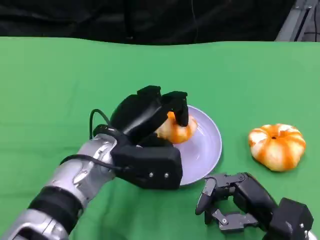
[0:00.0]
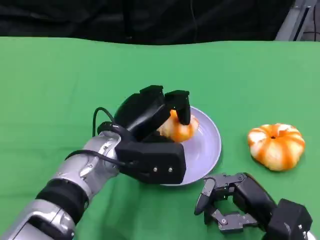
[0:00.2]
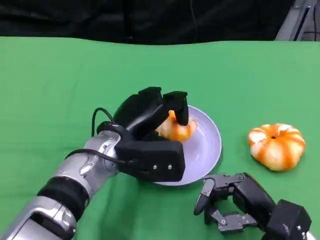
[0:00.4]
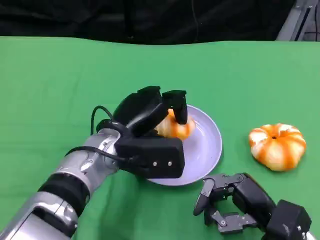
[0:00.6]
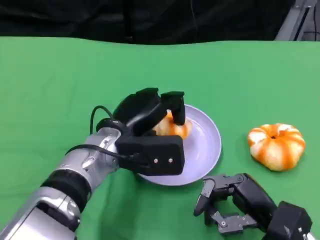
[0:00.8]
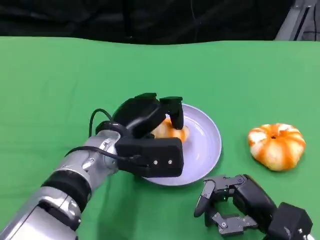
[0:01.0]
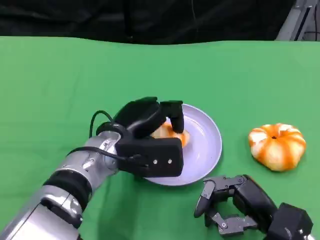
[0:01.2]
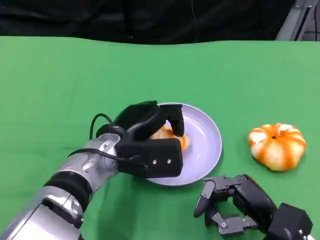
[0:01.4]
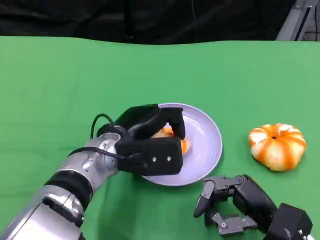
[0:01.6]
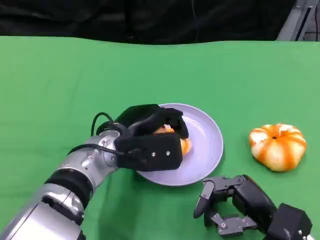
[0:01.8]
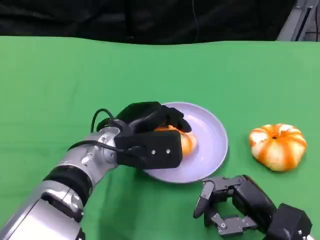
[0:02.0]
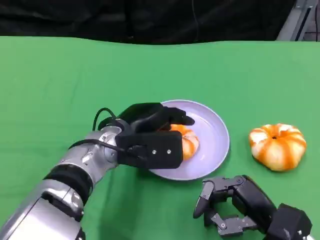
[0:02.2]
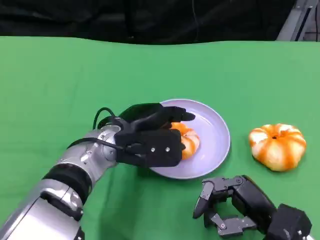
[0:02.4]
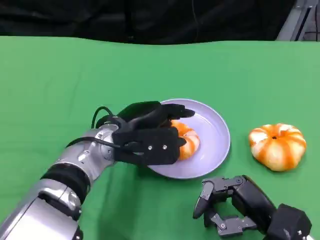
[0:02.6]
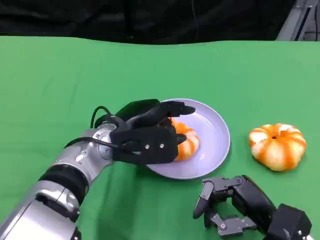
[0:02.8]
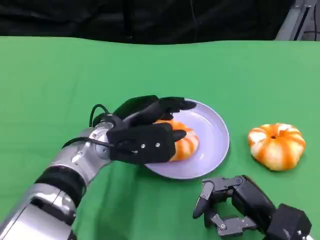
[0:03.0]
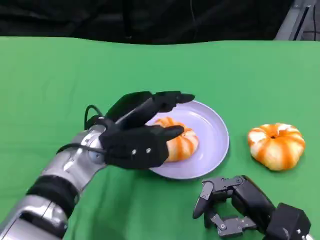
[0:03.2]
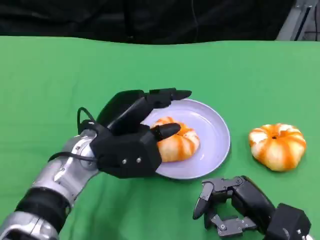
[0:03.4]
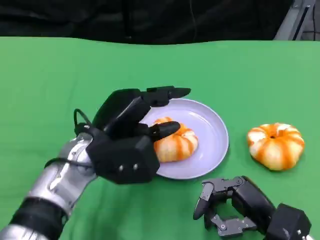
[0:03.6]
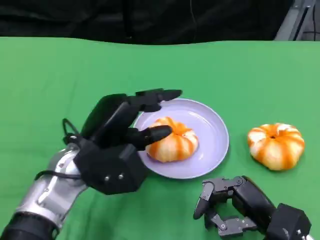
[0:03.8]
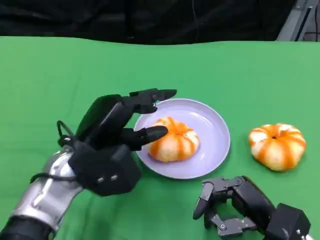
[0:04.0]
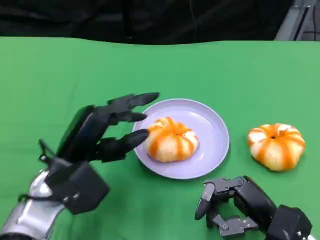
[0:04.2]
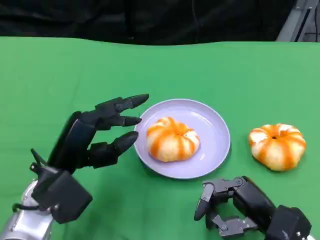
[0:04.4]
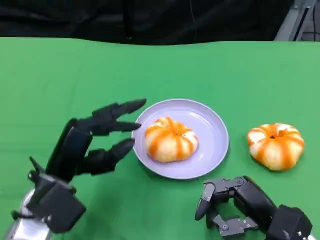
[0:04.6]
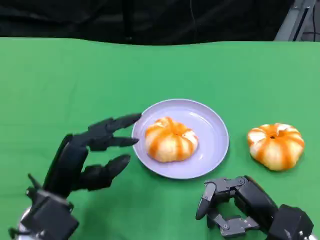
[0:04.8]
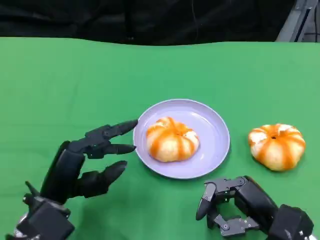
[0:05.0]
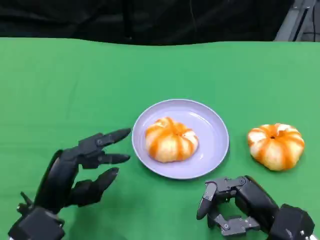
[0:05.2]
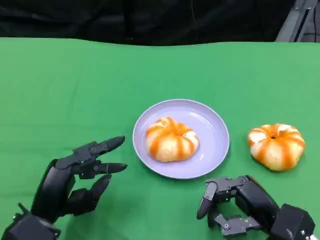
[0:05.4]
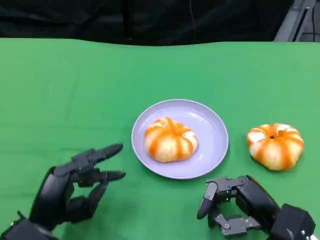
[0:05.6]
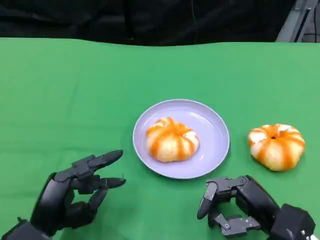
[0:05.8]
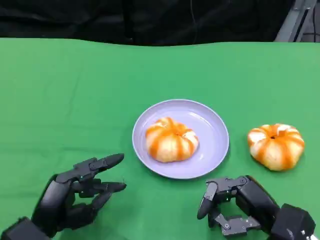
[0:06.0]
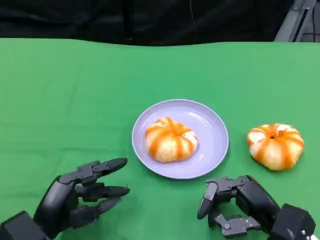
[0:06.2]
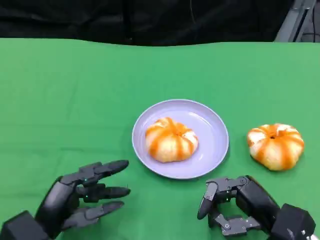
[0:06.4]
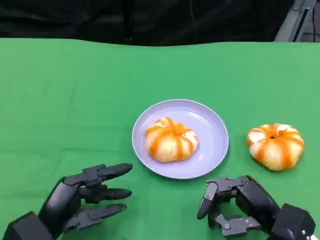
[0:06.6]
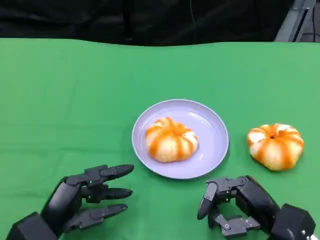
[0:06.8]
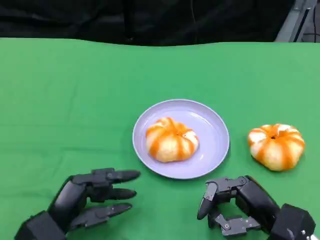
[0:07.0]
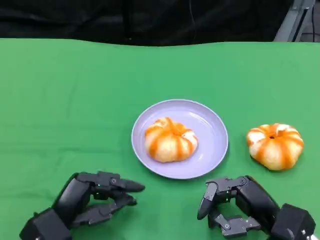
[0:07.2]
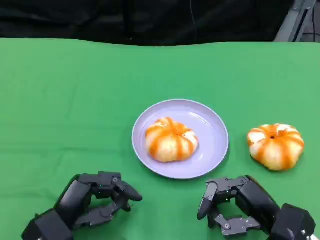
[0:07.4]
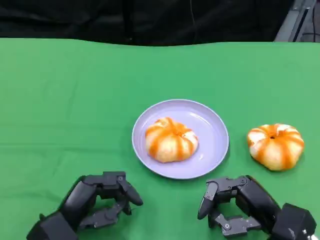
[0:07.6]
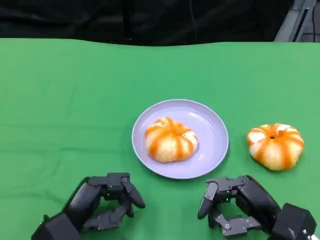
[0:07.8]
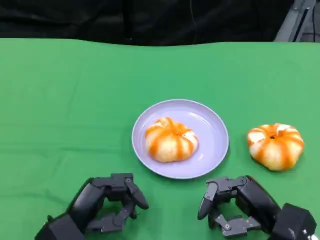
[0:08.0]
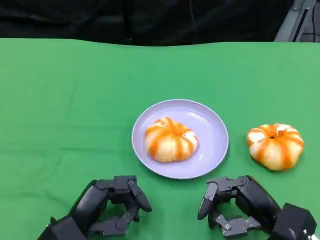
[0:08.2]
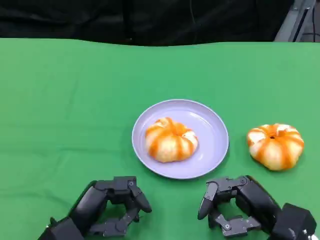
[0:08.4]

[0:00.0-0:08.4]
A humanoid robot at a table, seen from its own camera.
Task of the whole recording: Grasp the bread from the table and place it into the plate.
0:00.0 to 0:01.4: The hands stay close to where they were, moving slightly.
0:01.4 to 0:02.8: The hands make only small movements.
0:02.8 to 0:04.2: The left hand shifts some 10 cm to the left and backward.
0:04.2 to 0:05.6: The left hand shifts roughly 10 cm downward and backward.
0:05.6 to 0:08.4: The hands make only small movements.

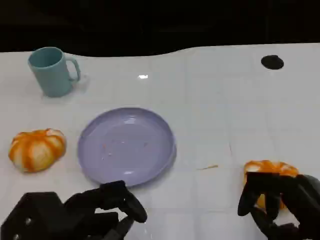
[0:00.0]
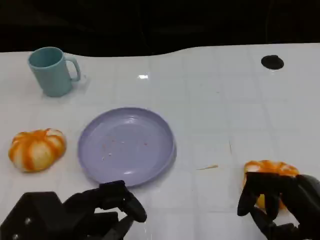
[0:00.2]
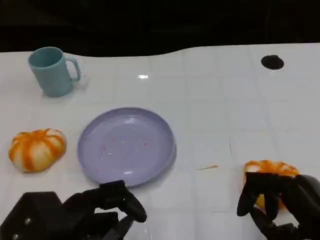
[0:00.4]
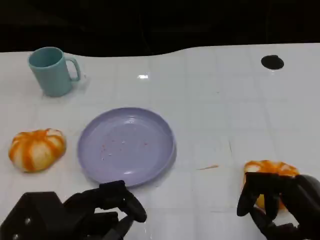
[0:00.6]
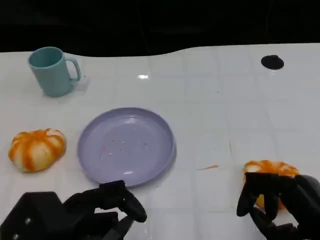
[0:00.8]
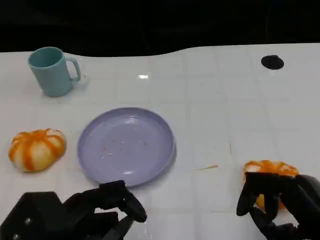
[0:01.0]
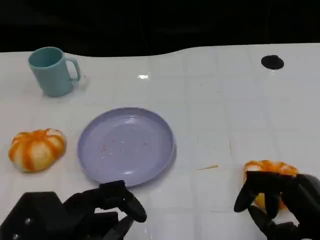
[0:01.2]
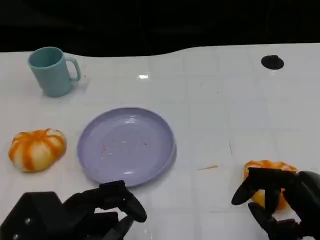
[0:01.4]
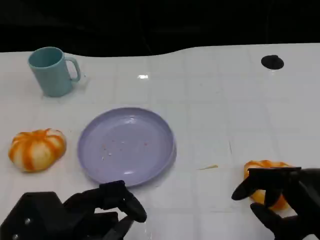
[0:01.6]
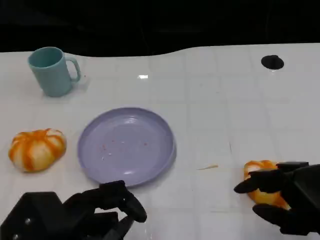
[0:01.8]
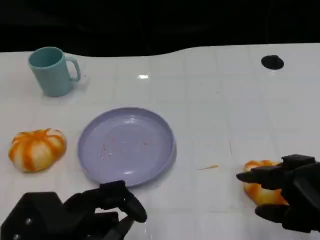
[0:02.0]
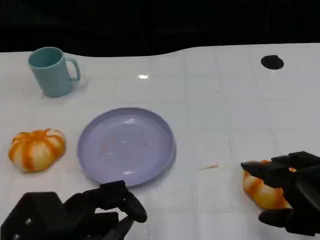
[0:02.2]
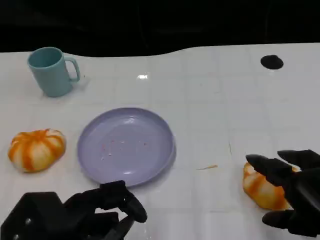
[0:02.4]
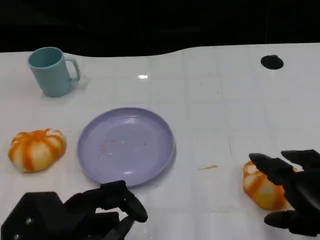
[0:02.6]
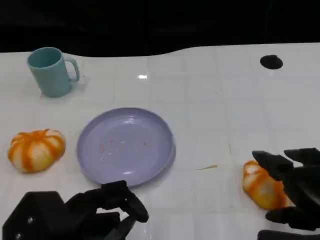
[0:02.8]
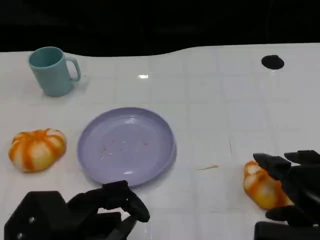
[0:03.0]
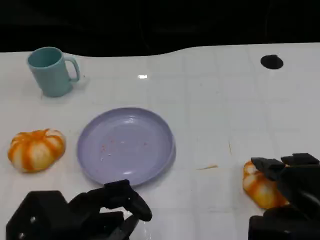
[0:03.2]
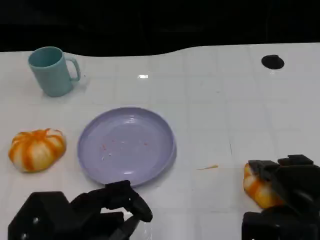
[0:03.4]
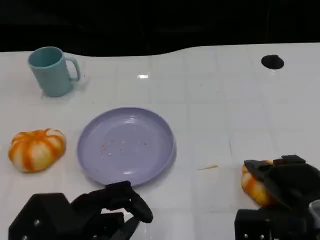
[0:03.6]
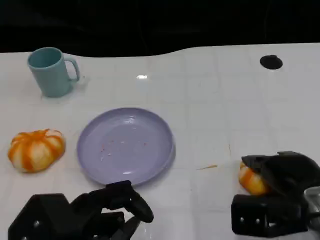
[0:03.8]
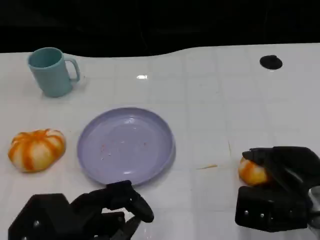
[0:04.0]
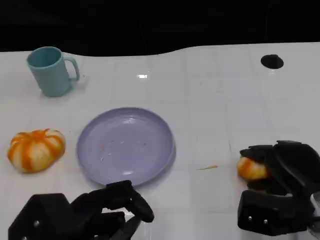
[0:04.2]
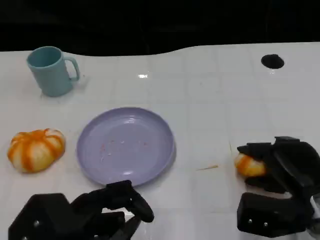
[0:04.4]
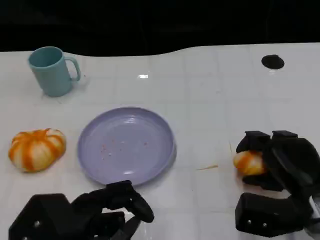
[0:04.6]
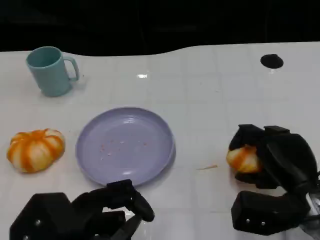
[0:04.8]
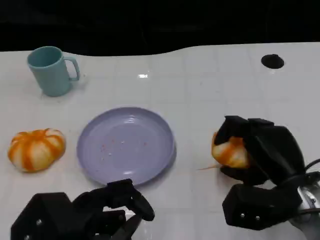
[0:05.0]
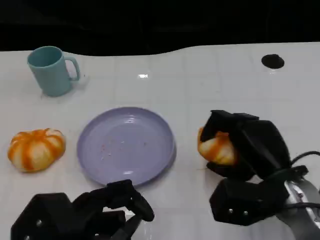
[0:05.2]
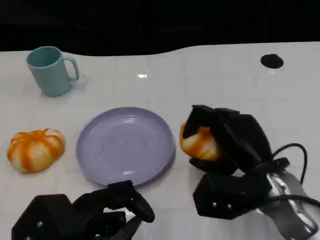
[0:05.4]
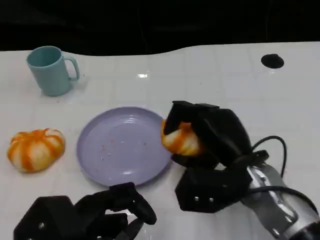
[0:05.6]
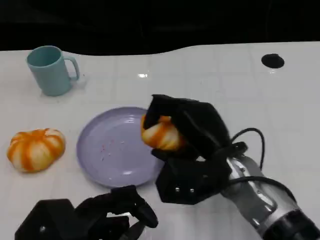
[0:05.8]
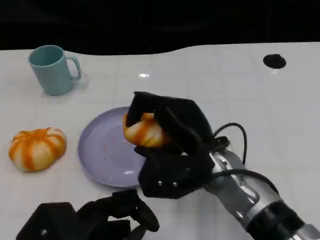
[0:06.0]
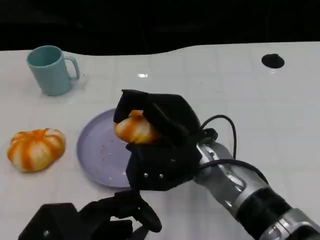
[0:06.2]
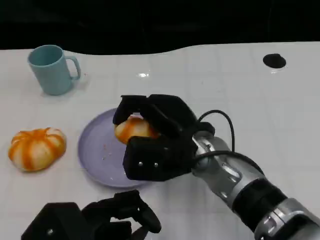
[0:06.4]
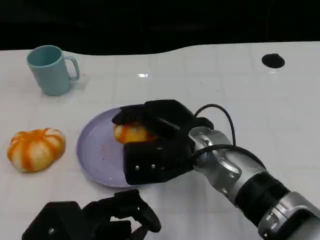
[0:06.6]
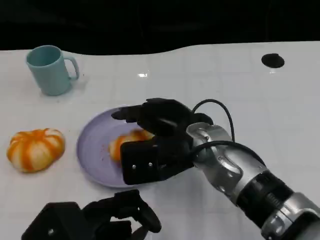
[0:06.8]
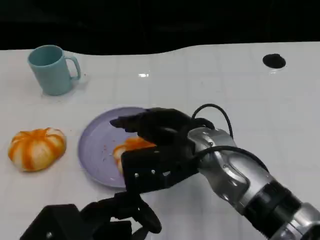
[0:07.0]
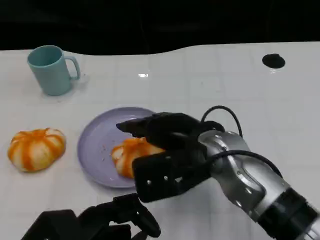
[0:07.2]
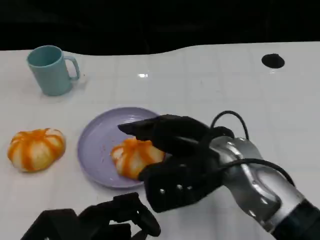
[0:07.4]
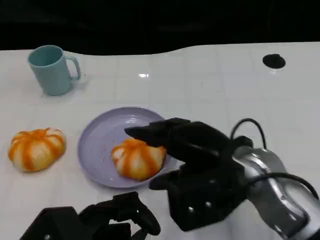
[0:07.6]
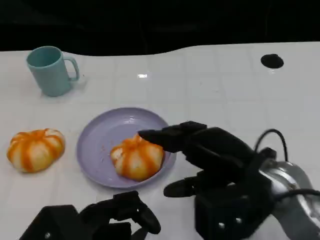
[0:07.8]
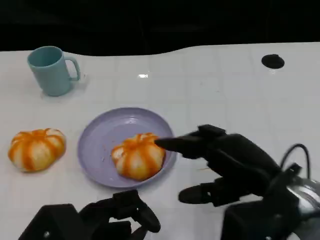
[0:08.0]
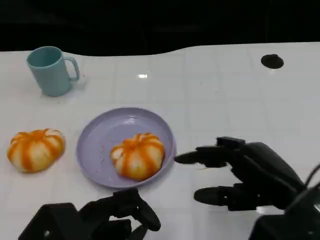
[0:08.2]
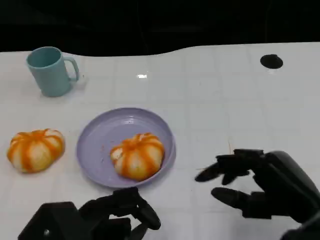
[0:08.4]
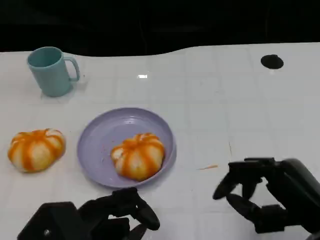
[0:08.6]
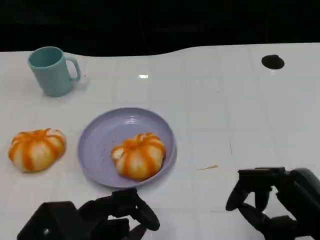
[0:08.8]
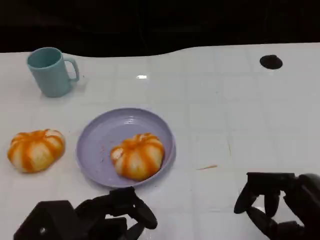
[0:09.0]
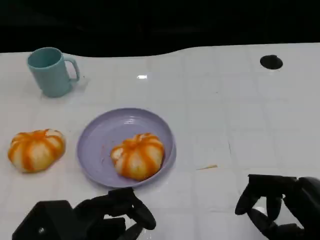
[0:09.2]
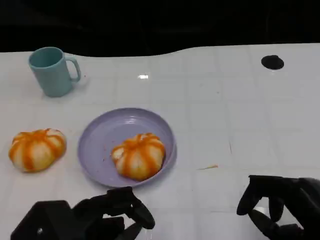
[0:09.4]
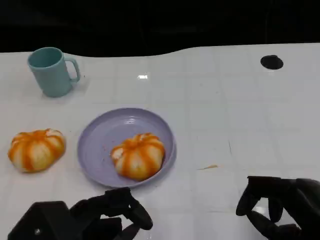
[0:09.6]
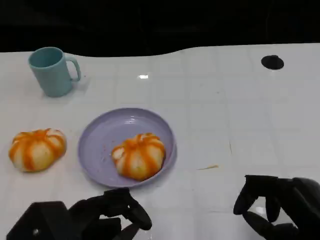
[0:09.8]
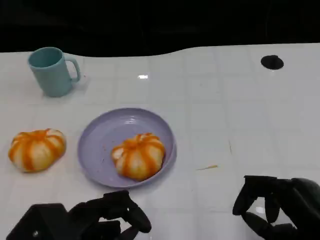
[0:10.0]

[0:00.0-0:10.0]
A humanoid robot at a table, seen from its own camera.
Task of the whole recording: Grasp the bread from the table and place it into the plate.
0:00.0 to 0:01.4: Both hands stay put.
0:02.8 to 0:04.2: The right hand moves forward and downward, roughly 10 cm.
0:04.2 to 0:05.8: The right hand goes some 15 cm to the left and upward.
0:07.2 to 0:08.6: The right hand goes approximately 20 cm to the right and backward.
0:08.6 to 0:10.0: There are only small adjustments of the hands.

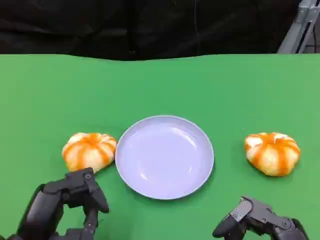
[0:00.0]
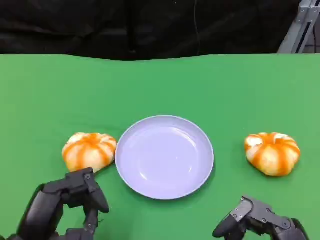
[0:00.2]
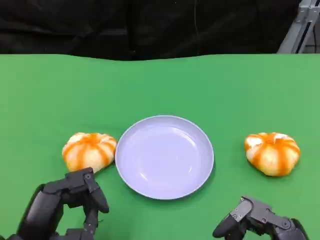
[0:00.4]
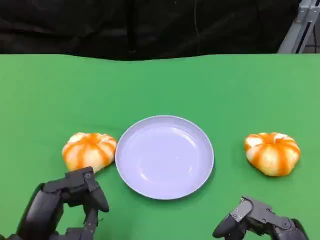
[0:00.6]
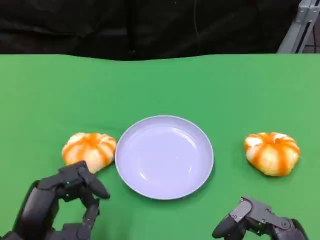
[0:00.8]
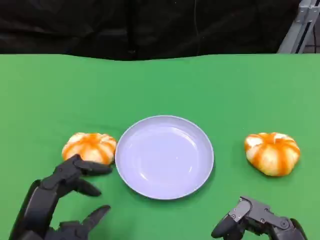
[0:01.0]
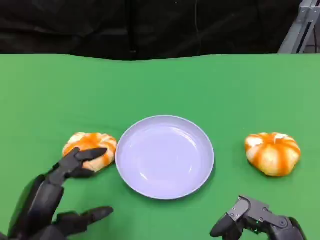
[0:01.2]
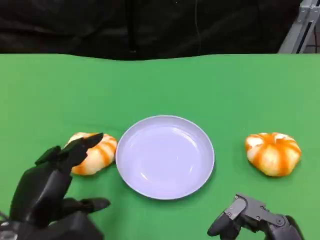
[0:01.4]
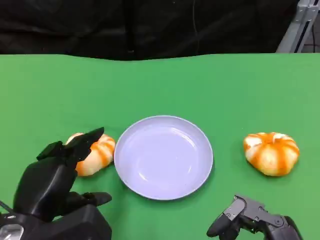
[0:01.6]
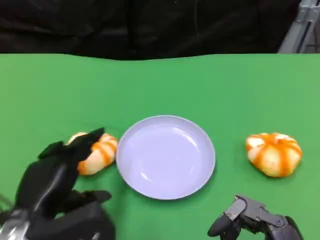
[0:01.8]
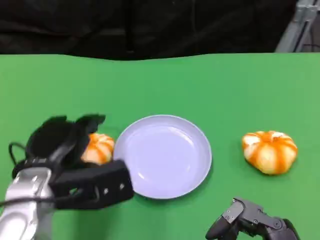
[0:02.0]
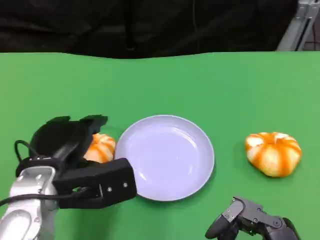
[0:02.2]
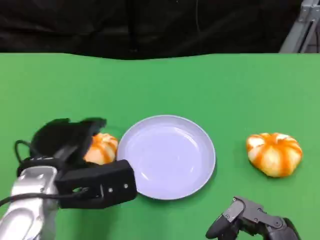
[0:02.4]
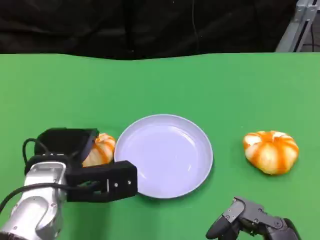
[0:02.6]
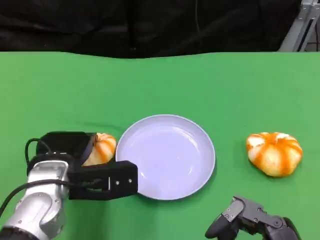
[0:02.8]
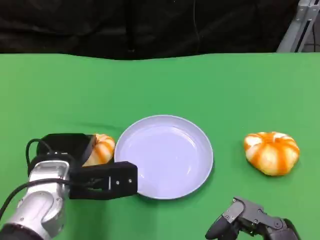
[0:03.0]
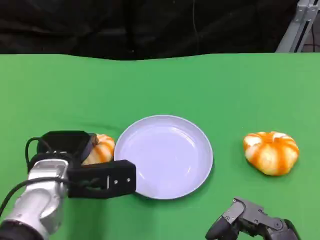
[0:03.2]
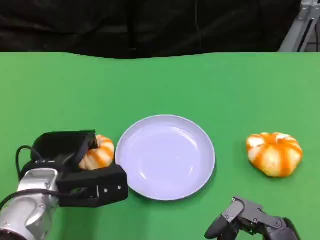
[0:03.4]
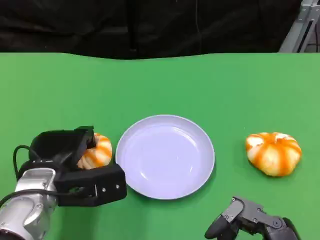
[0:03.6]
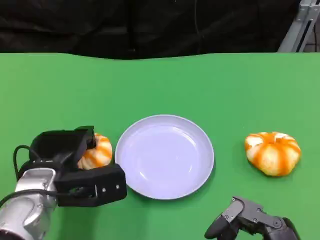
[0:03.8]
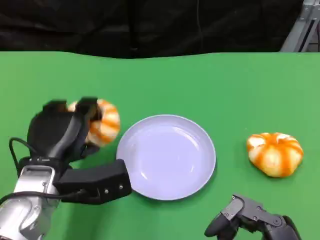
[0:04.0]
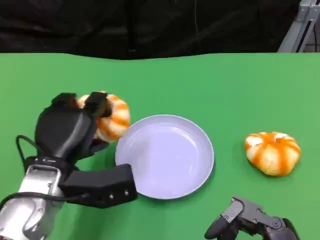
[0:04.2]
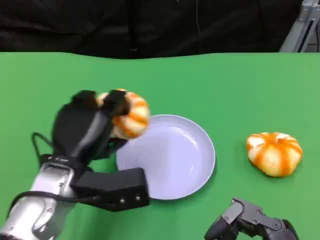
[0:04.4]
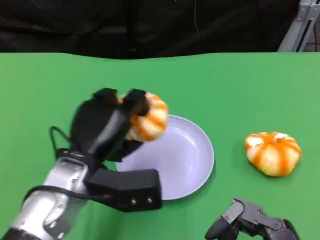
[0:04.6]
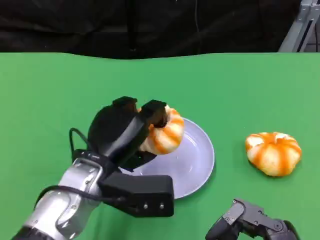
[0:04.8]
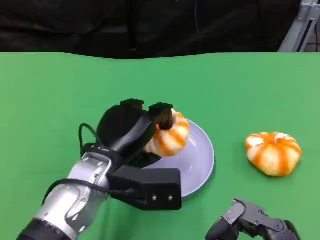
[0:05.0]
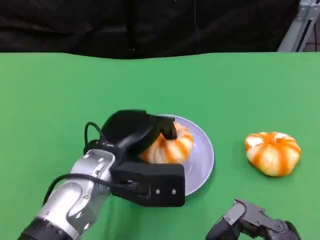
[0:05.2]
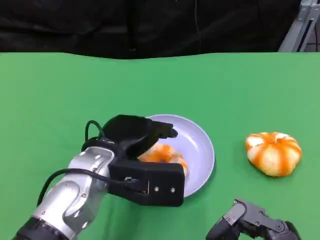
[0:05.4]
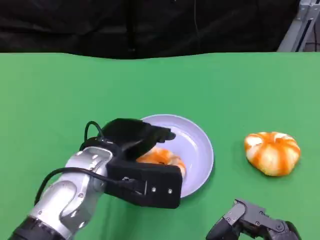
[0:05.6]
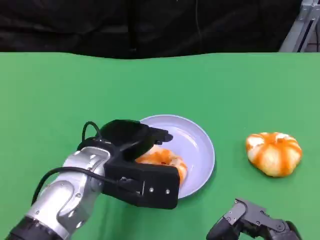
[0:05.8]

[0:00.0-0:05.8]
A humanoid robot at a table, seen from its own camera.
Task of the whole recording: Grasp the bread from the table and place it into the plate.
0:01.4 to 0:02.8: The left hand goes some 10 cm forward.
